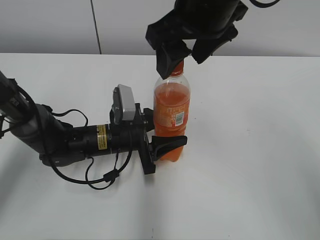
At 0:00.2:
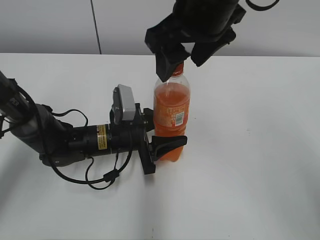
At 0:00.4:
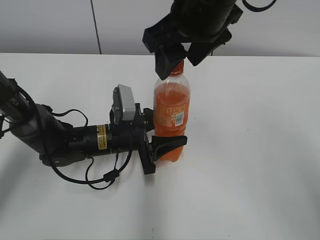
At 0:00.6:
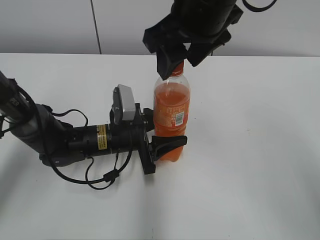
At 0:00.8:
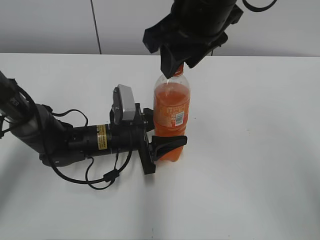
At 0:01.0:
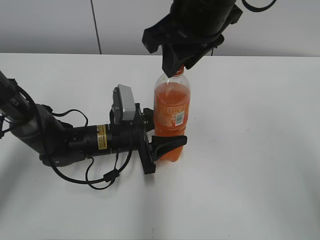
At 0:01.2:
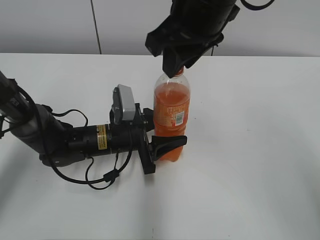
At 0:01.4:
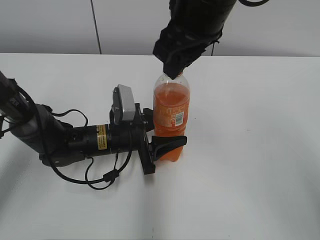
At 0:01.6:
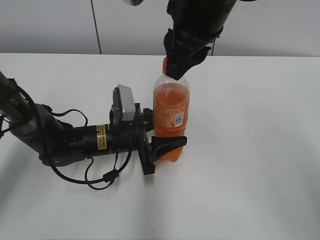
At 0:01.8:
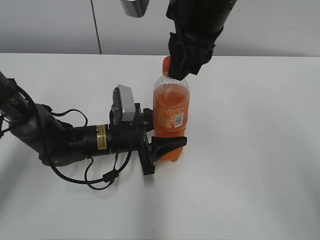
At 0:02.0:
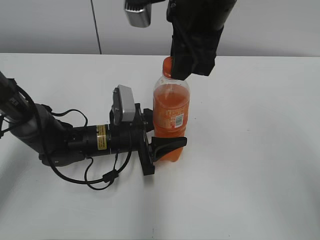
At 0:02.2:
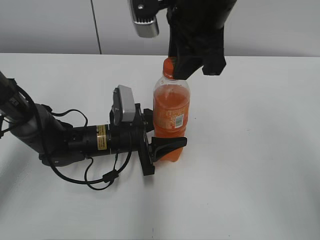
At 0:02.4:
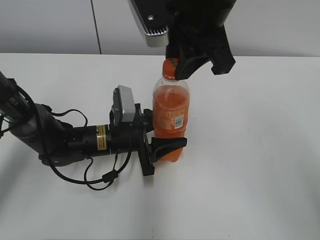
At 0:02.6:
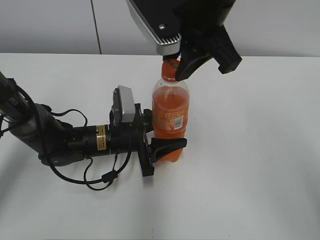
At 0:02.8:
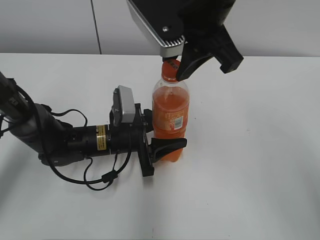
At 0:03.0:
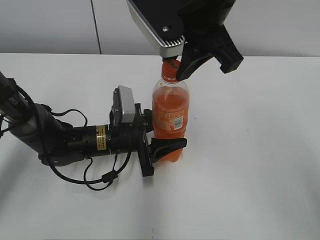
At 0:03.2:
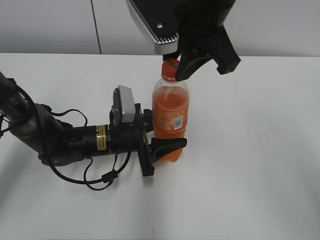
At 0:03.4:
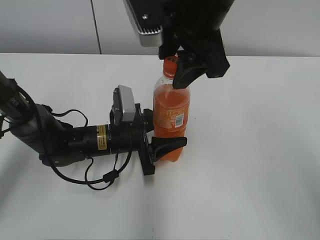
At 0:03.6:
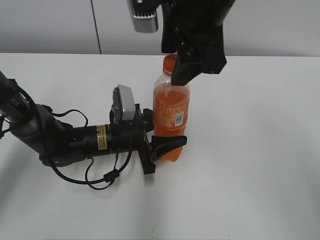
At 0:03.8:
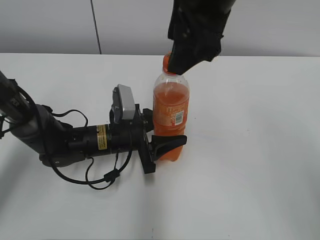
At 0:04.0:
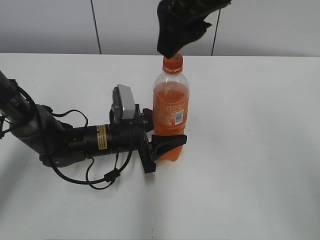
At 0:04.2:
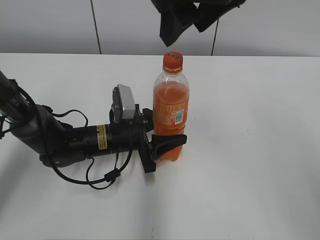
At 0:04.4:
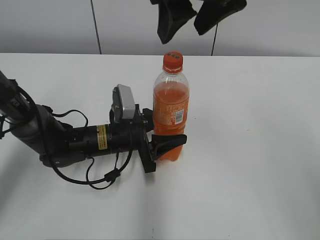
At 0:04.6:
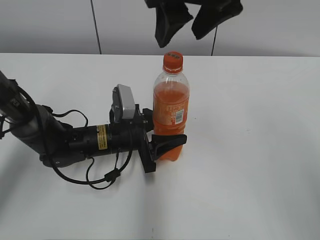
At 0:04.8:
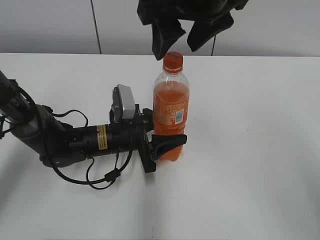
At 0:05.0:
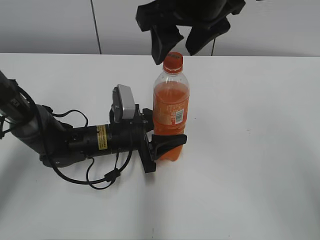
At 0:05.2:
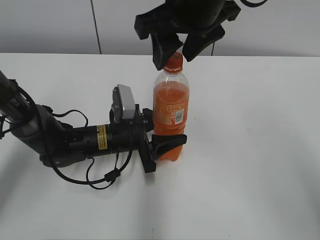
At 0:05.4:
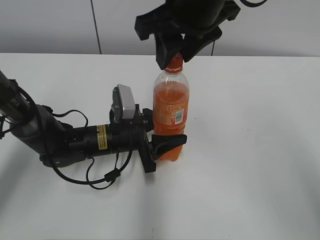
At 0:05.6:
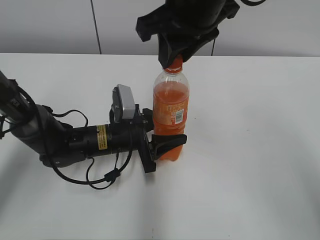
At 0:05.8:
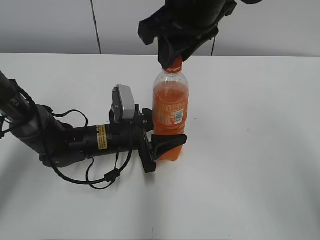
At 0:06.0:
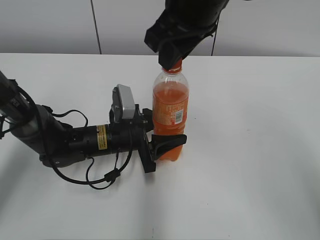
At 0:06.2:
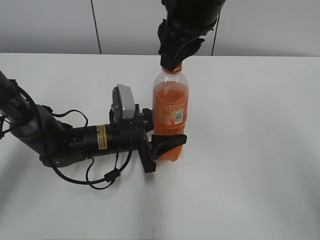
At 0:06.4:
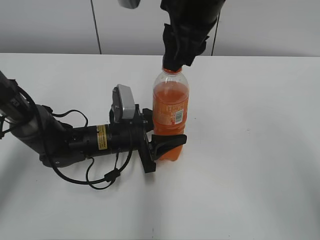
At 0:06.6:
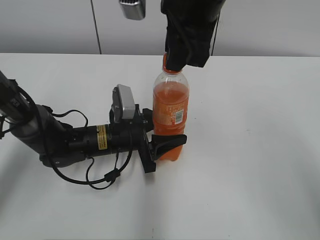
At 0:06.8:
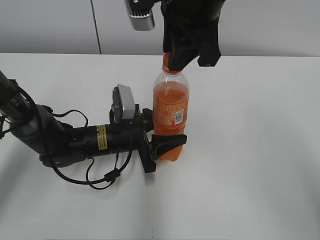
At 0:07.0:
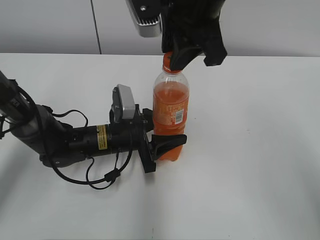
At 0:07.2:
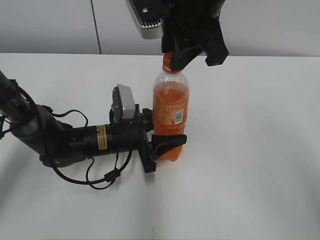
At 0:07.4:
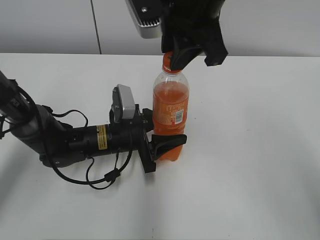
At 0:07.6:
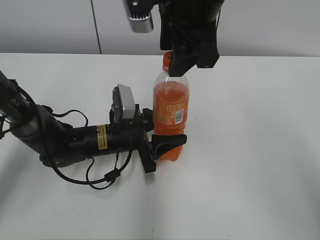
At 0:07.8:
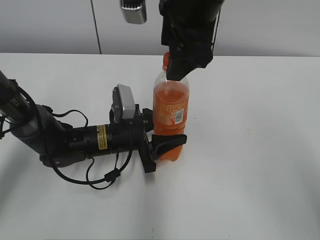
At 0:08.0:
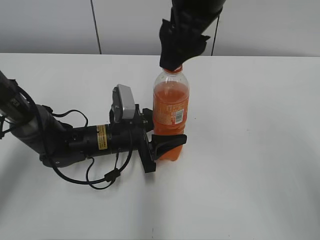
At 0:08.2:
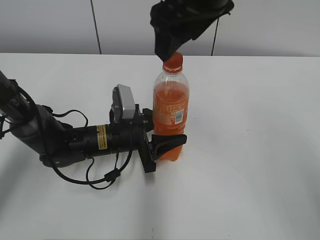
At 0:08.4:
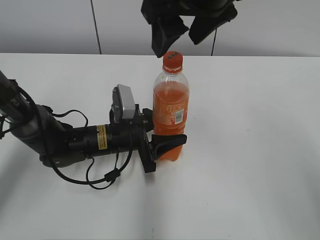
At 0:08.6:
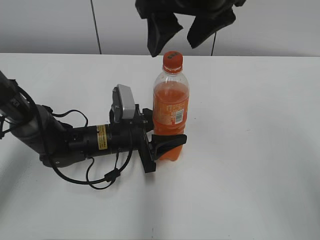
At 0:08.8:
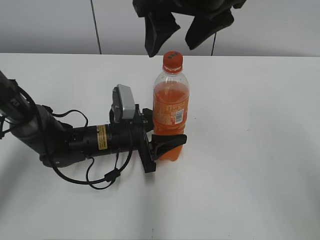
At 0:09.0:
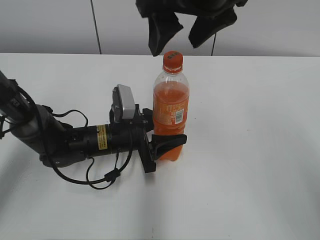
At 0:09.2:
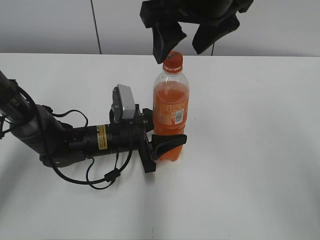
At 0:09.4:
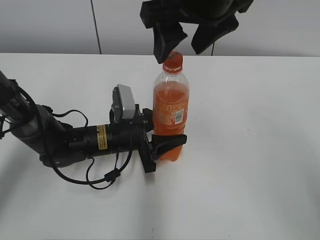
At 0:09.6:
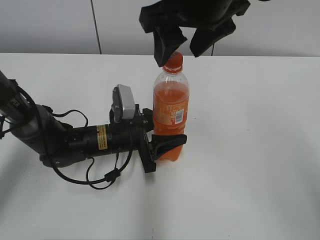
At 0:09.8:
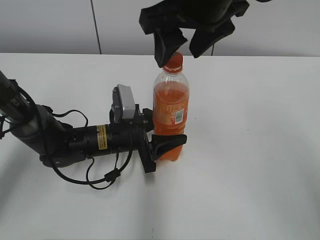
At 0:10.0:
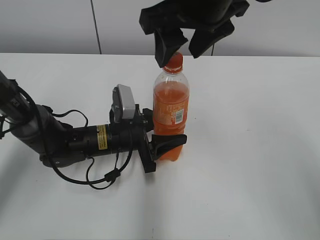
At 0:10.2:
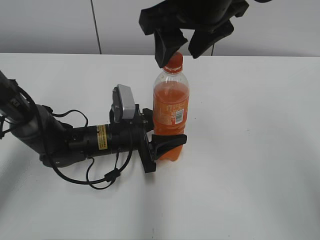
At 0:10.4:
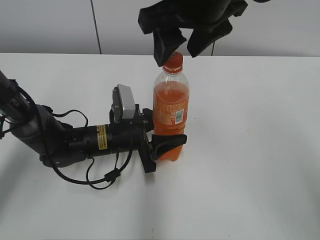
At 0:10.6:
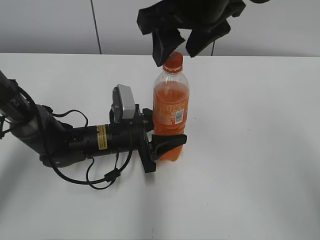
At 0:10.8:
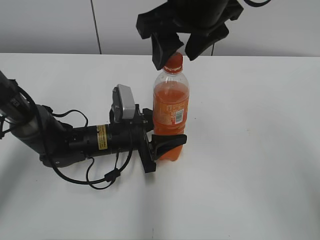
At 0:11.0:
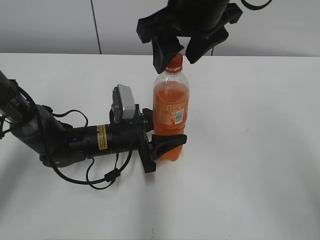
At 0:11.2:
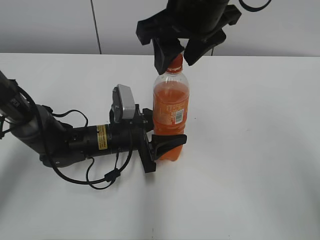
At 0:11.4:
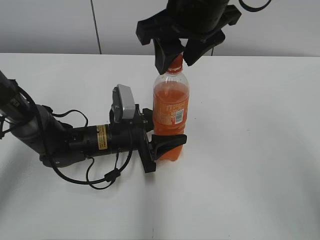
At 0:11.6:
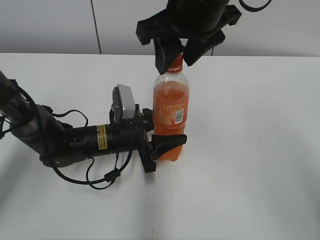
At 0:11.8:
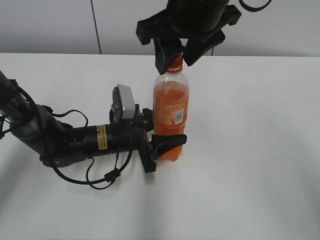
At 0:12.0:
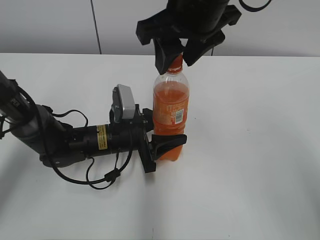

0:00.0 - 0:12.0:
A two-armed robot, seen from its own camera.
0:00.0 - 0:01.6: The right gripper closes its fingers.
0:03.0 - 0:04.4: The right gripper opens its fingers.
0:04.4 - 0:06.0: The right gripper closes its fingers.
0:06.0 - 0:07.6: The right gripper opens up.
0:07.6 - 0:09.0: The right gripper opens.
0:09.0 - 0:12.0: The grippers move only a little.

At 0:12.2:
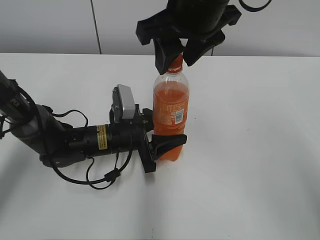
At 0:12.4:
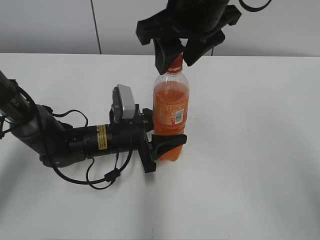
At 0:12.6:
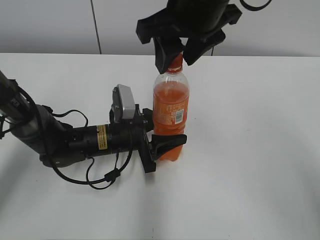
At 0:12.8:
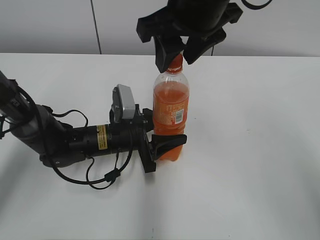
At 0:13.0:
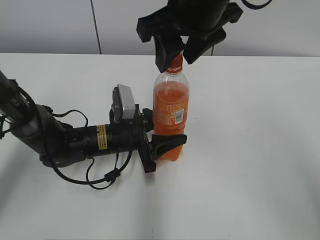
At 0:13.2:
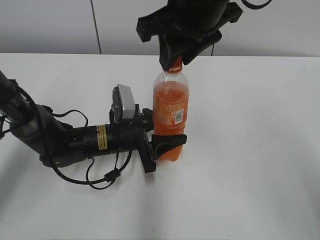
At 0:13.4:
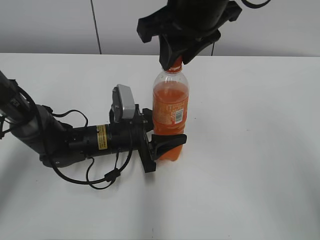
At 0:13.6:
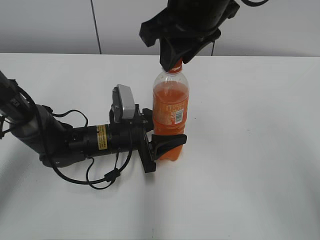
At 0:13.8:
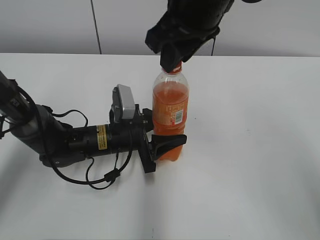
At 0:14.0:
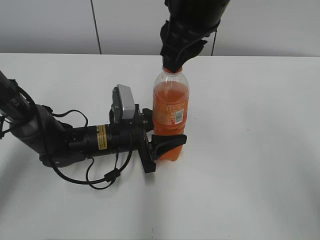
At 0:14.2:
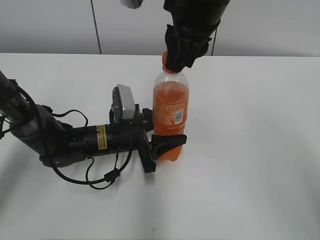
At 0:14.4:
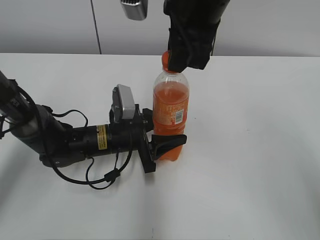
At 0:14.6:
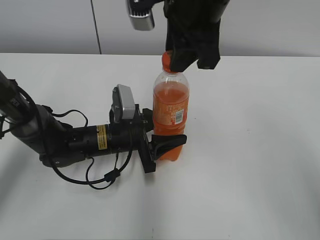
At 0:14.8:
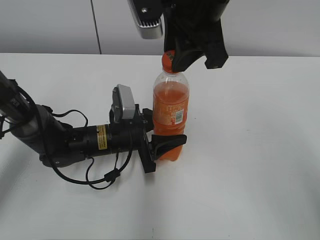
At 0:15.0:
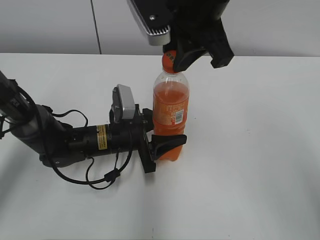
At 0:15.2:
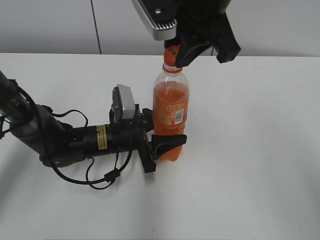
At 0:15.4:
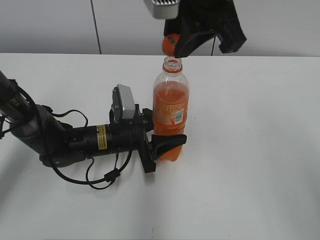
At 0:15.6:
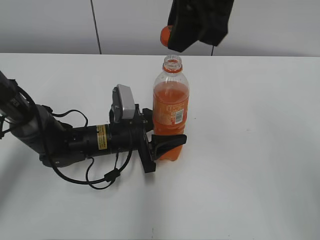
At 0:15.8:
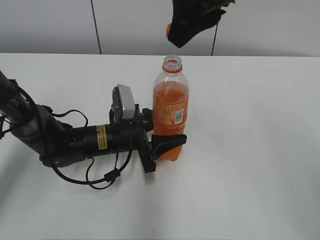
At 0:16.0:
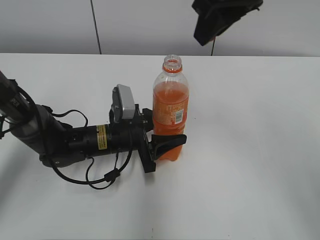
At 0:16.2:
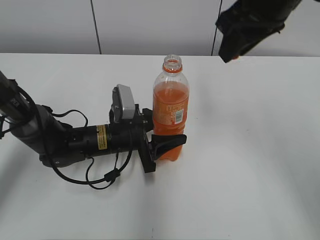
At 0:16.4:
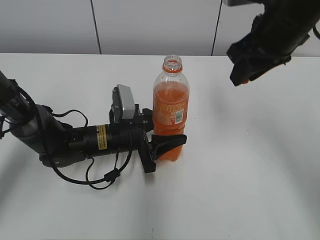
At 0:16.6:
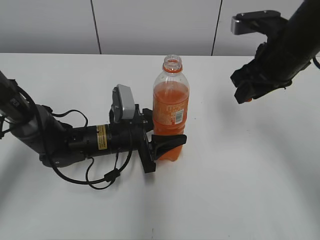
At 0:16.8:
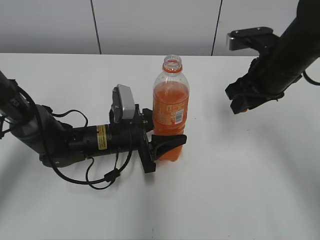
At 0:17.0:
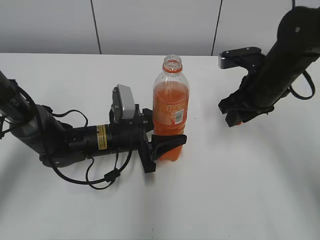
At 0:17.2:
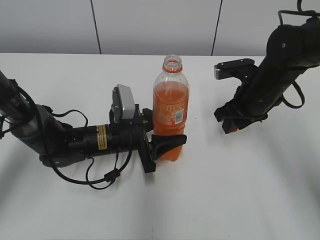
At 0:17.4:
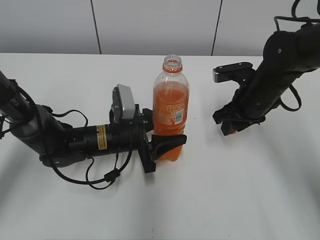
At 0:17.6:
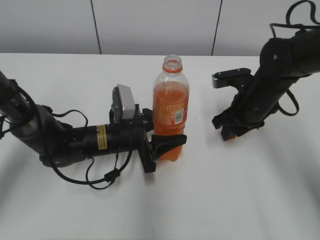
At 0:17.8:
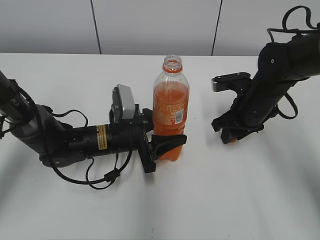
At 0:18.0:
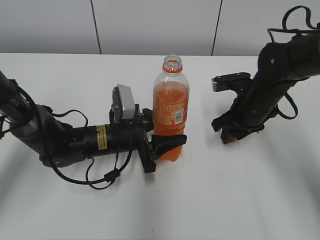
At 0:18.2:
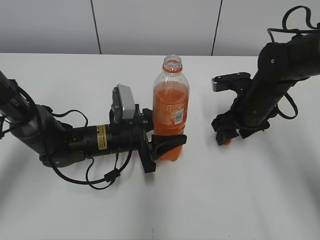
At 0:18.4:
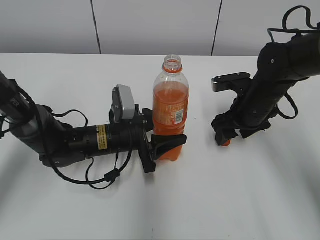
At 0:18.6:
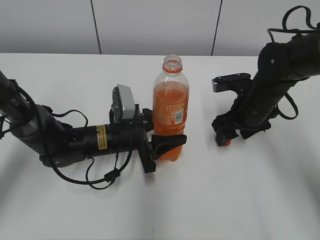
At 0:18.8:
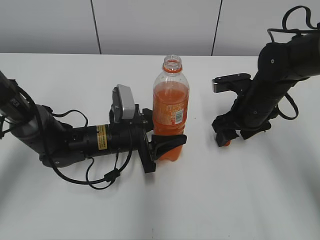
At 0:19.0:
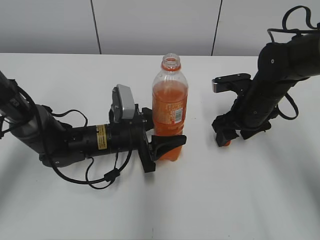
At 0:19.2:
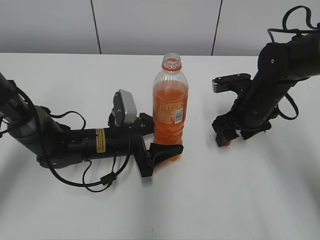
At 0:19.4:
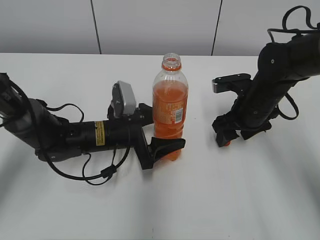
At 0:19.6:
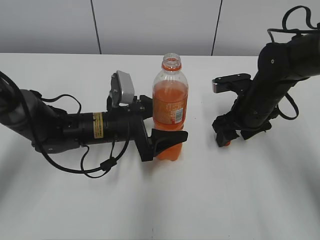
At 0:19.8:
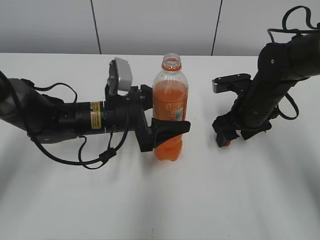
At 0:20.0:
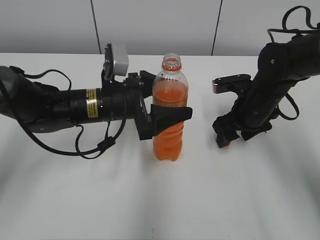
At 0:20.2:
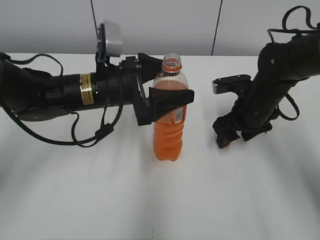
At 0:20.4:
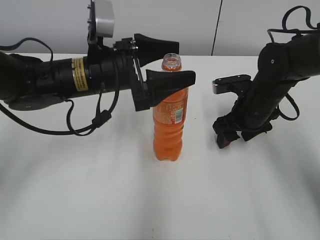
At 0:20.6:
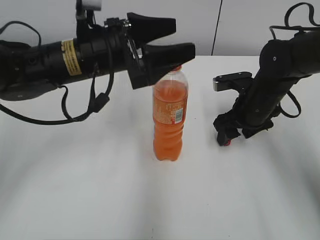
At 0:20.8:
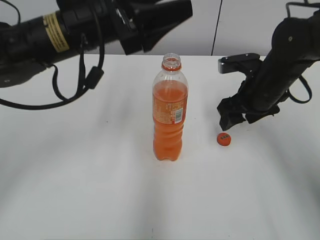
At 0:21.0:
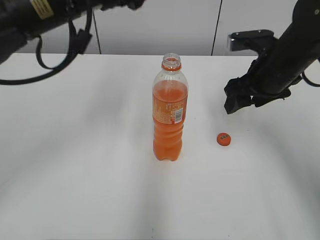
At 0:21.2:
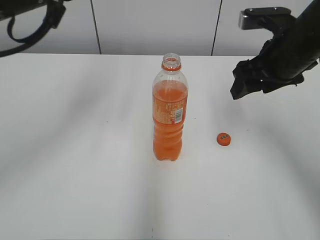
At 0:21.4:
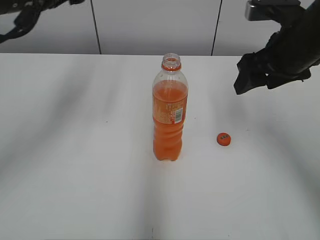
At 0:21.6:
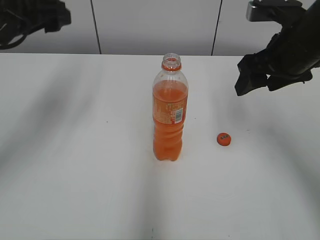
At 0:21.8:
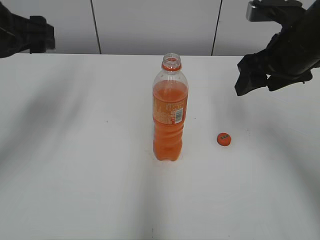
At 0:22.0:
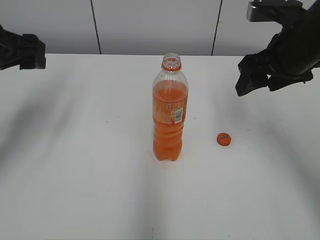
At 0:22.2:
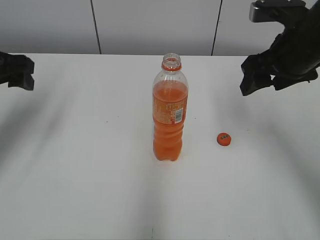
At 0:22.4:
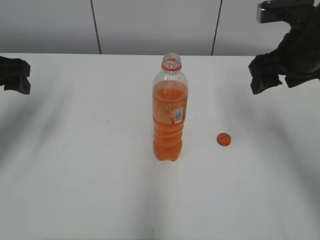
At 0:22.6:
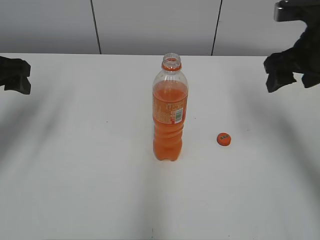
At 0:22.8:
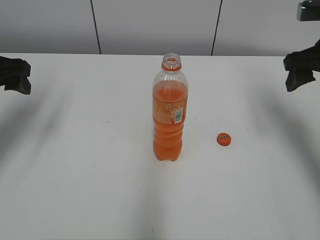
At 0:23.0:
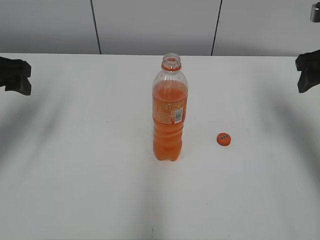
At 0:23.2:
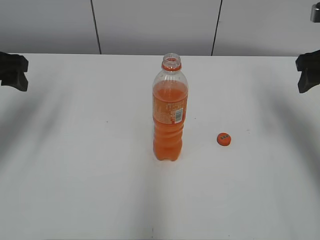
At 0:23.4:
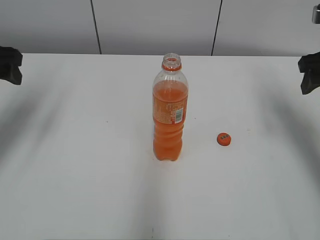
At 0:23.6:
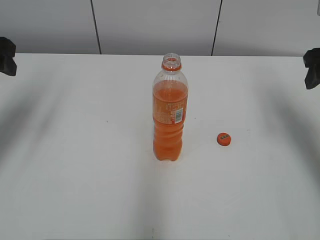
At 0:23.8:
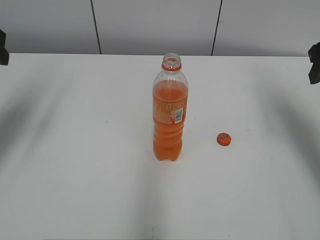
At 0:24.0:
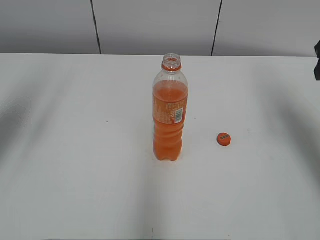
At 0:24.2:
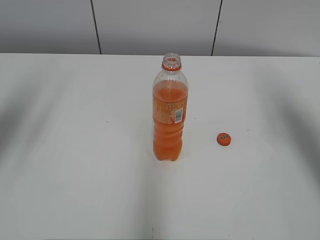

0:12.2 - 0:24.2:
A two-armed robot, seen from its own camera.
Step, 0:12.2 - 0:15.2: Twist the bottle cap with the right hand.
Step, 0:15.4 - 0:18.4: Place the bottle cap on the right.
0:12.2 - 0:13.8: The right gripper closes.
0:15.2 - 0:16.6: The right gripper moves to the right and downward, approximately 15 cm.
0:16.6 - 0:18.2: The right gripper travels downward by some 15 cm, and opens up.
0:18.2 - 0:19.8: The left gripper heads upward, covering approximately 5 cm, and opens its fingers.
0:19.8 - 0:21.2: The left gripper shifts roughly 20 cm upward, while the right gripper shifts roughly 15 cm upward.
0:21.2 - 0:22.6: The left gripper goes approximately 15 cm to the left and downward.
0:22.6 - 0:24.2: The right gripper heads to the right and upward, covering about 10 cm. The left gripper heads upward and backward, covering some 10 cm.
